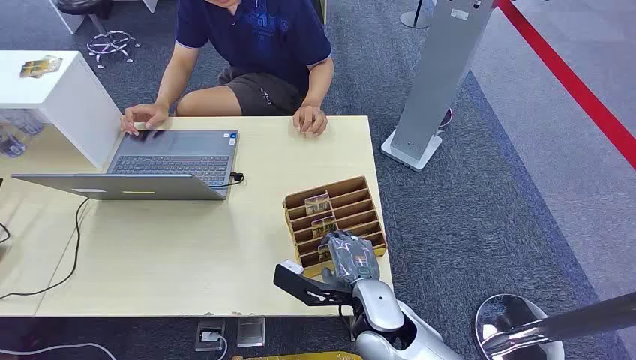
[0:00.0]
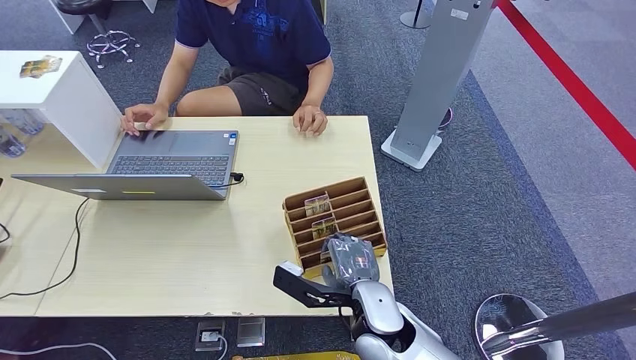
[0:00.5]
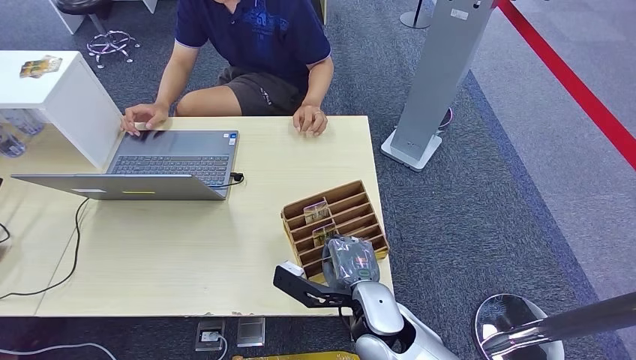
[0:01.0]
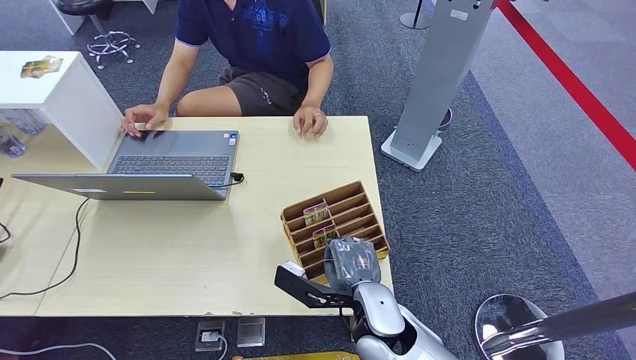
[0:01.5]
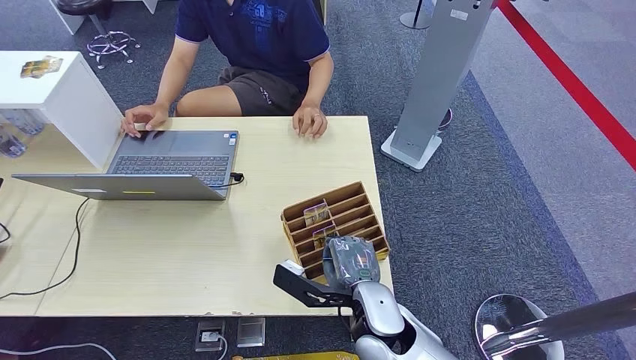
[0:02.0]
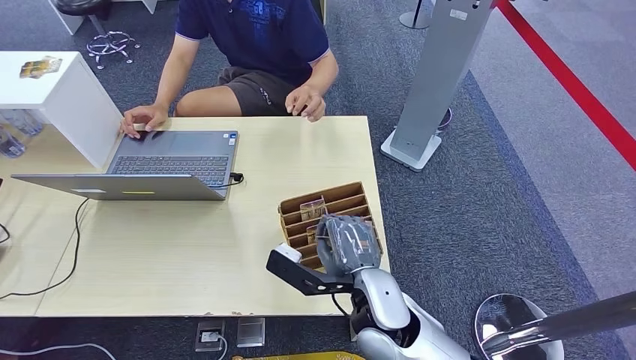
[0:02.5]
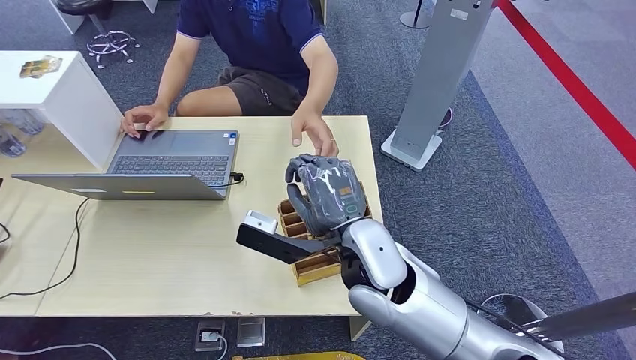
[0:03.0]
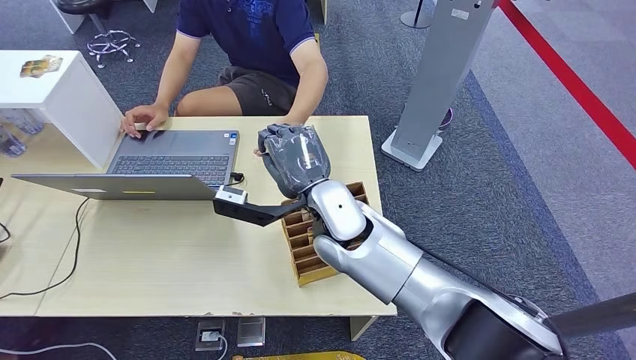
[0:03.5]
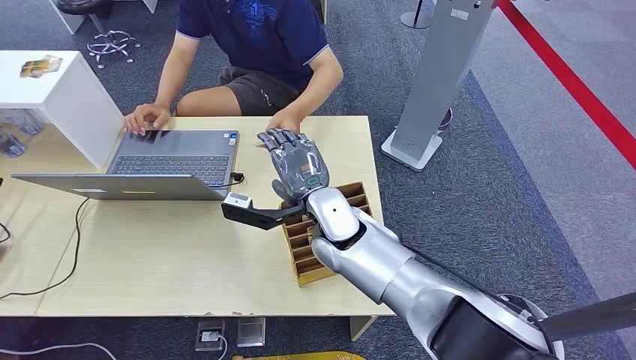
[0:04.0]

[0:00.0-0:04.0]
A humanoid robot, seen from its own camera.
Step, 0:00.0 to 0:02.5: Pick up the room card from the card holder.
Step, 0:03.0 to 0:04.0: Hand the room card to the target.
0:02.0 to 0:04.0: The right hand heads forward, upward and to the left, covering approximately 15 cm.

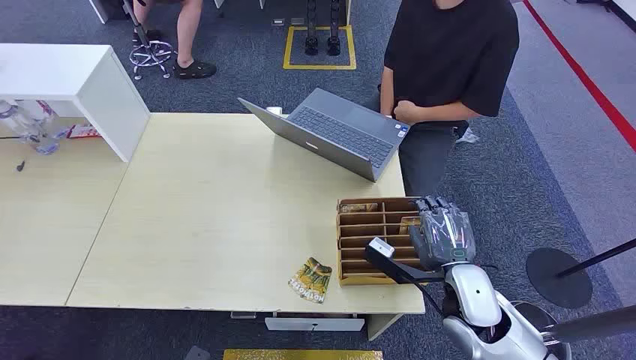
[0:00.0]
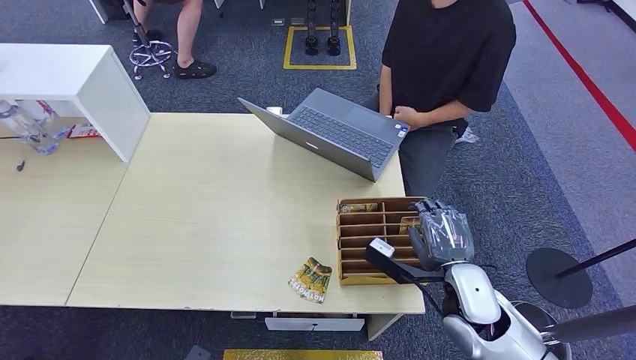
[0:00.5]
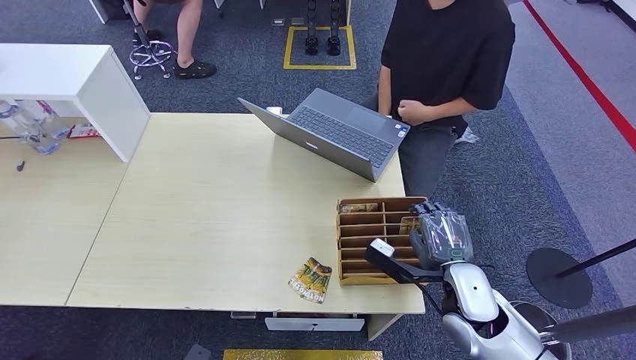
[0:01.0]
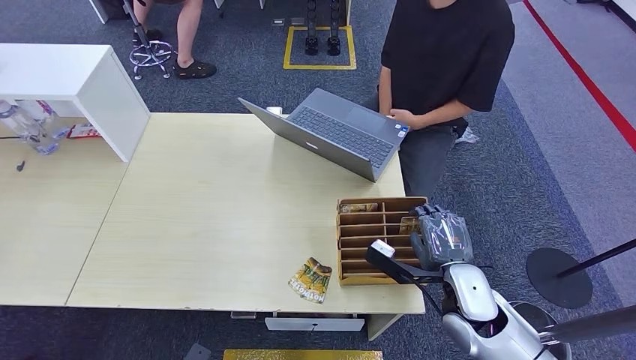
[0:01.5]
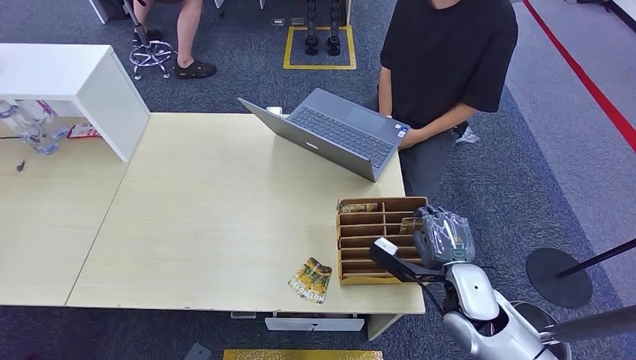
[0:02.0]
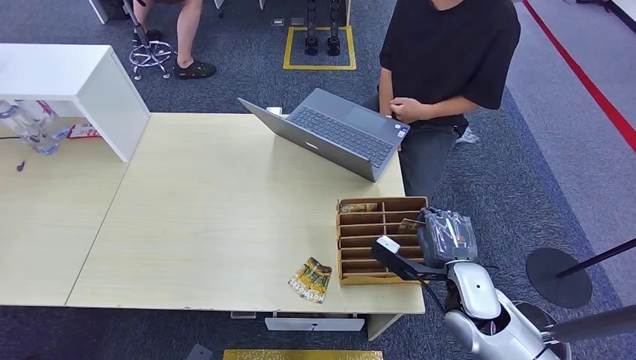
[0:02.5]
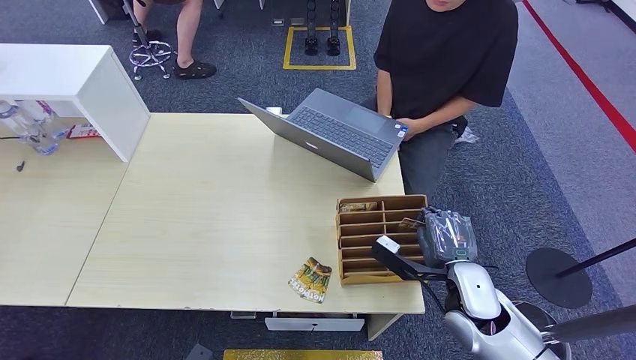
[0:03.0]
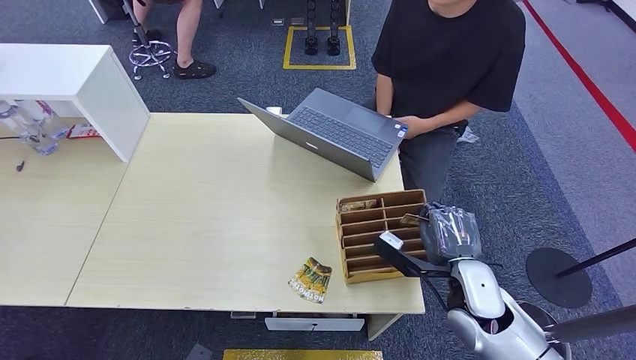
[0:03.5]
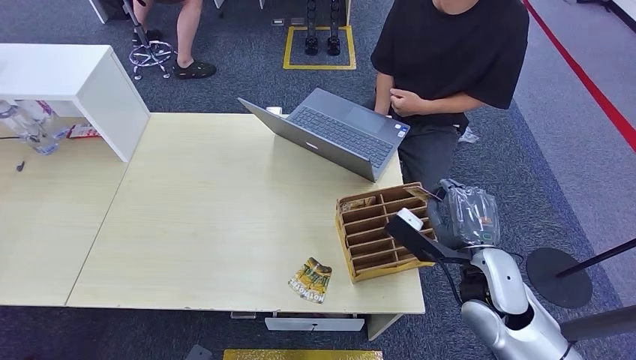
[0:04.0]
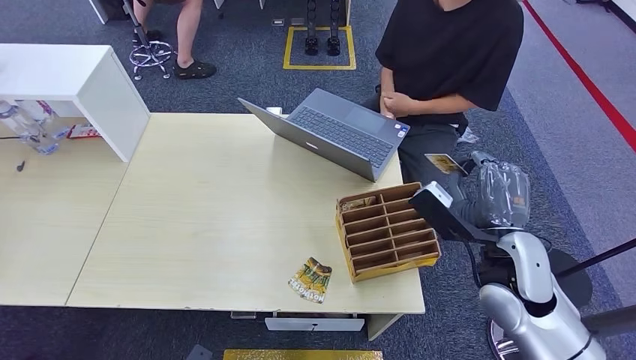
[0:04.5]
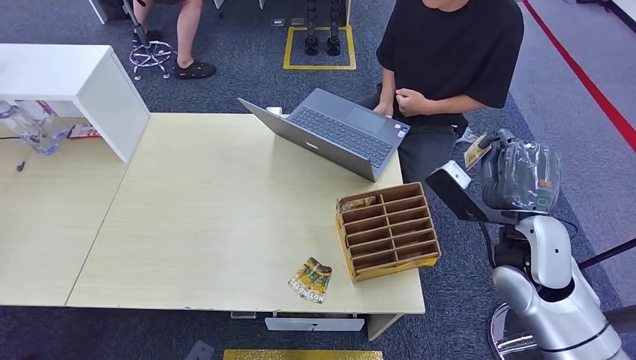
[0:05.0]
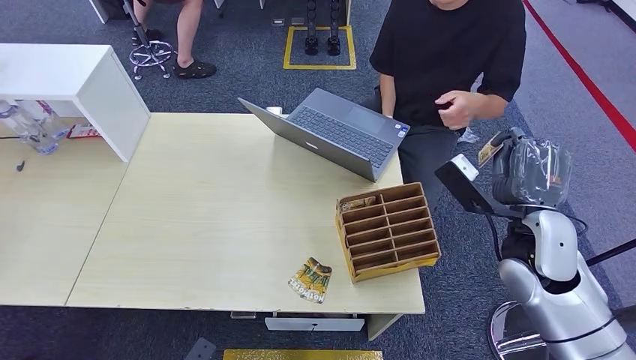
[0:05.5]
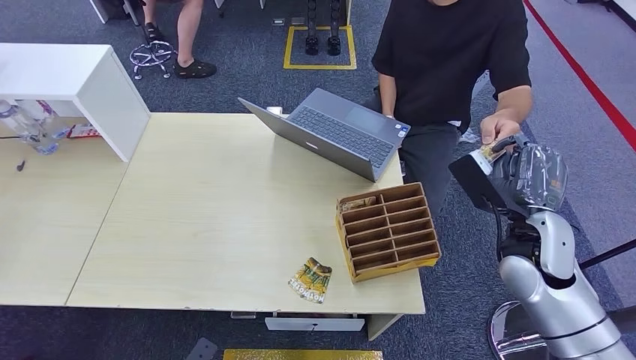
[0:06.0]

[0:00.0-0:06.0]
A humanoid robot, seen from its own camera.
Step, 0:00.0 to 0:04.5: Pick up the room card from the card holder.
Step, 0:05.0 to 0:06.0: Hand the room card to the target.
0:02.0 to 0:04.0: The right hand heads upward, covering approximately 5 cm.
0:04.0 to 0:06.0: The right hand travels to the right by some 5 cm.
